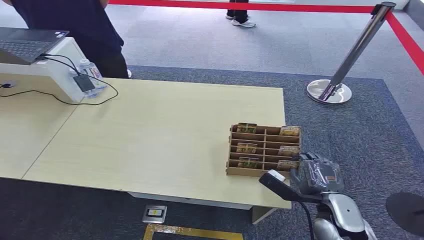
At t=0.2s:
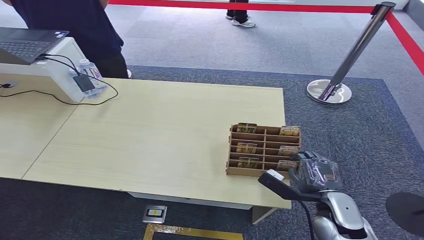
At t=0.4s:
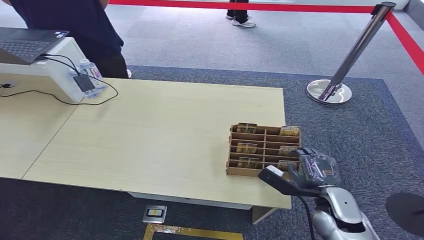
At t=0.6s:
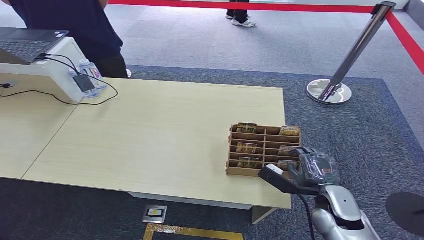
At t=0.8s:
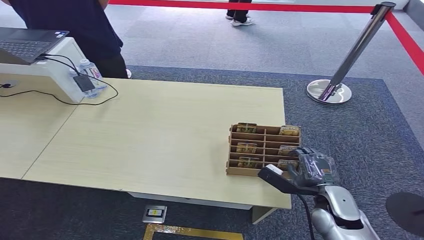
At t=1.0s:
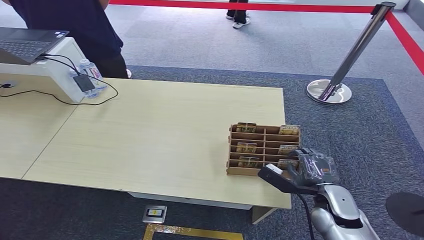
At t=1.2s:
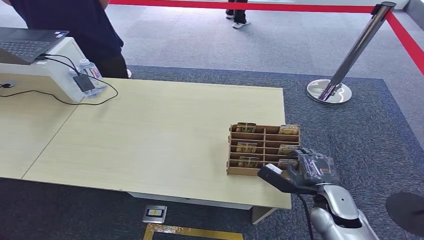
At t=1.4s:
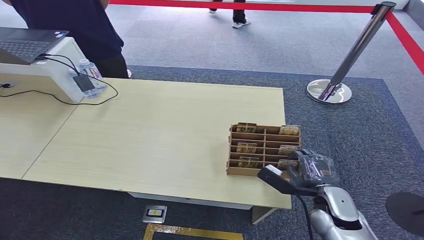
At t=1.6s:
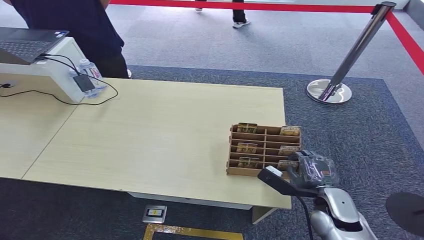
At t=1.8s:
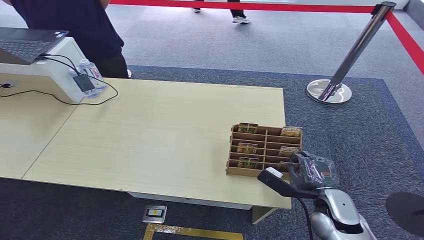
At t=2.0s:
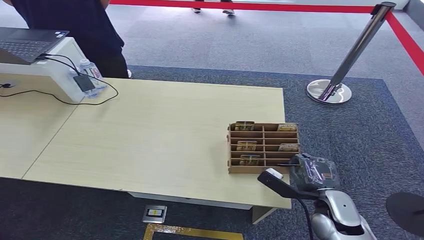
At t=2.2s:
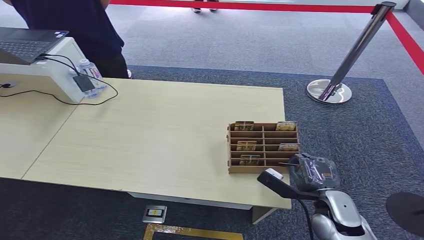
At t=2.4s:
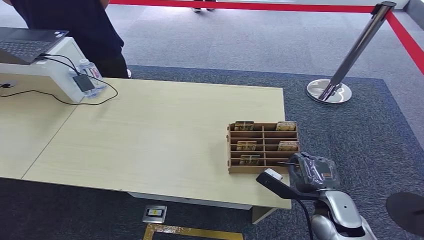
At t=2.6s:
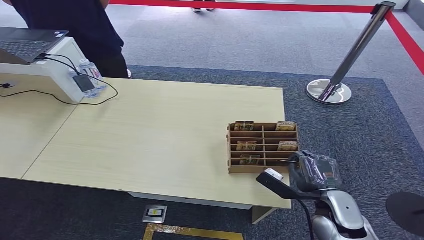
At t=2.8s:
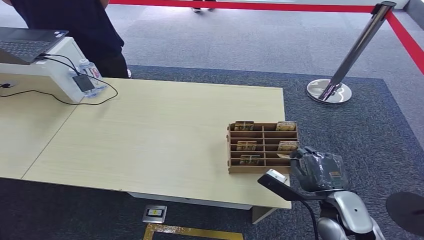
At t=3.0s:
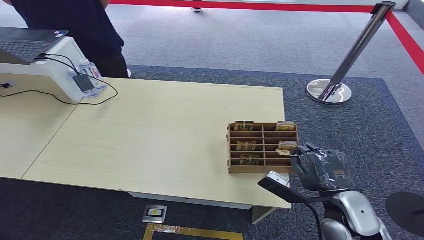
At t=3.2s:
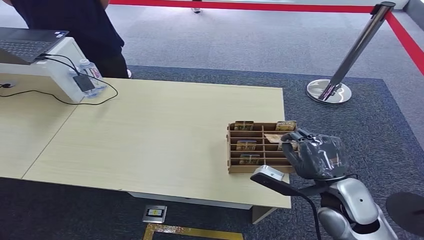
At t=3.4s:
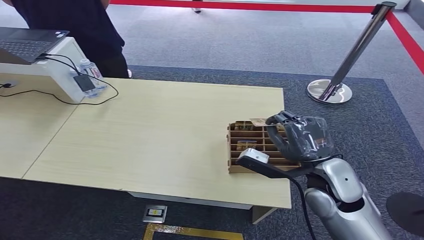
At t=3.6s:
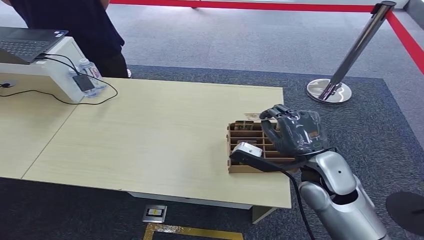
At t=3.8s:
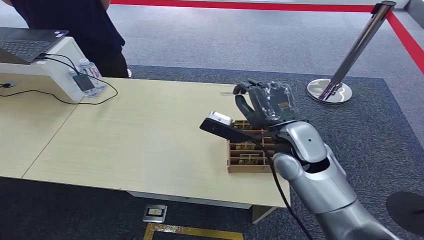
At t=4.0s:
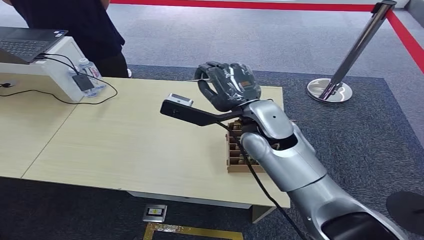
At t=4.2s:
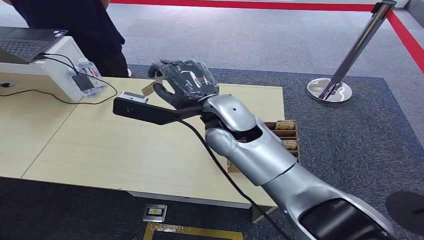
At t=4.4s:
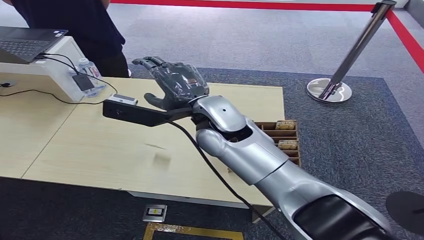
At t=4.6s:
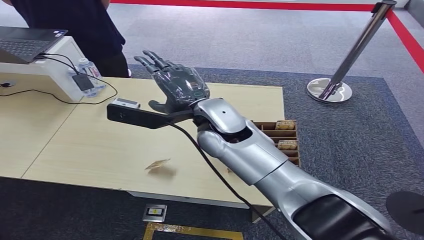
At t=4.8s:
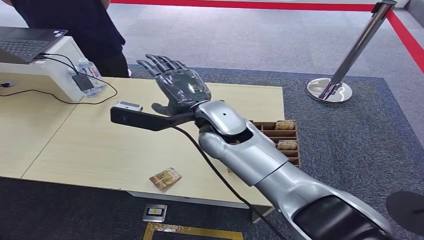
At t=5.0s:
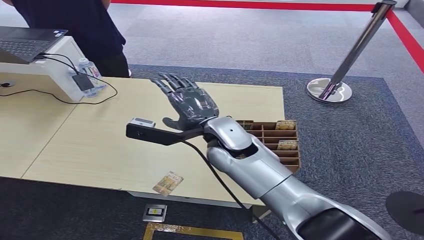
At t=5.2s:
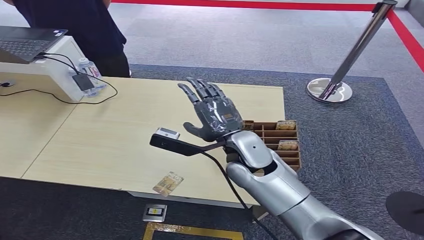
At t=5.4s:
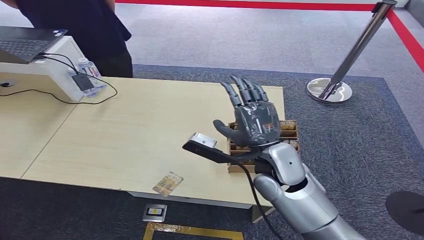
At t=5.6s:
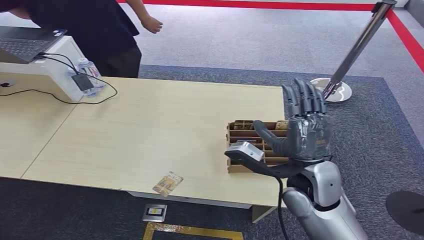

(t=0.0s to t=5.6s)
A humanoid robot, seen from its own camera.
Step, t=0.0s - t=2.8s: Pick up the key card from the card box.
Step, t=3.0s - t=5.6s: Hand the key card to the target.
t=1.4s - t=2.8s: The hands make only small movements.
t=2.8s - t=4.2s: The right hand shifts approximately 35 cm to the left, upward and forward.
t=4.2s - t=5.6s: The right hand shifts some 20 cm to the right, downward and backward.

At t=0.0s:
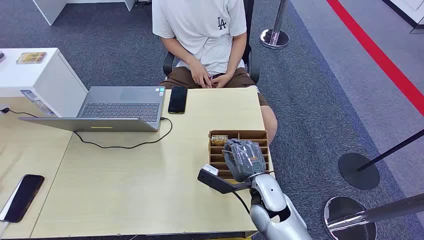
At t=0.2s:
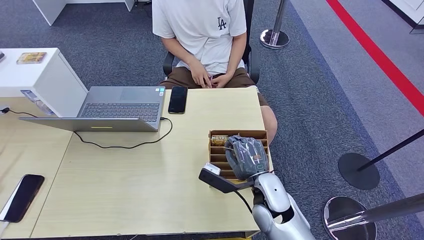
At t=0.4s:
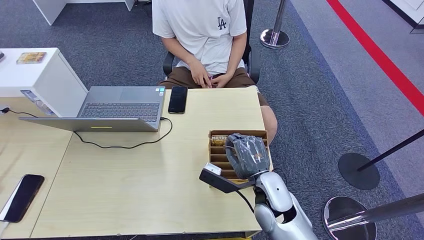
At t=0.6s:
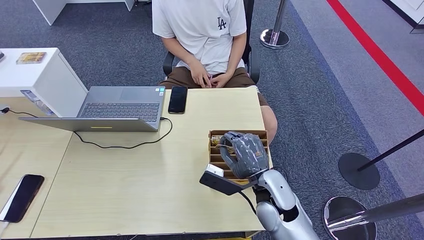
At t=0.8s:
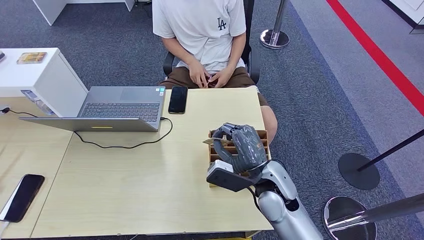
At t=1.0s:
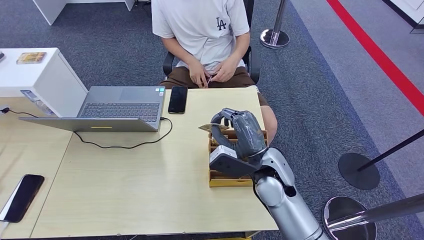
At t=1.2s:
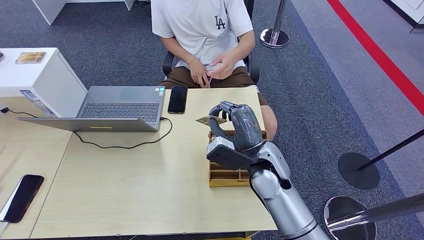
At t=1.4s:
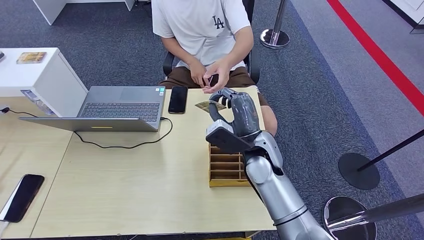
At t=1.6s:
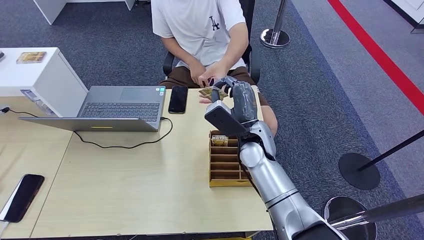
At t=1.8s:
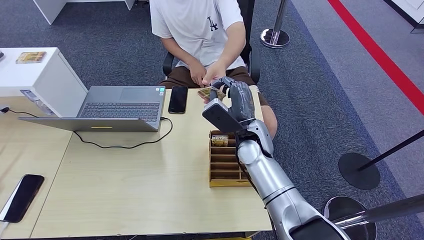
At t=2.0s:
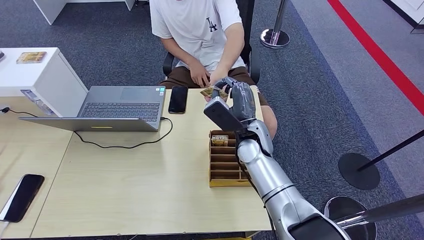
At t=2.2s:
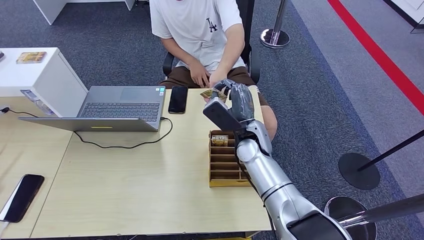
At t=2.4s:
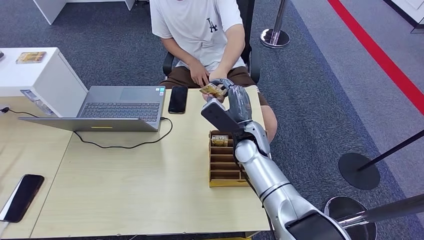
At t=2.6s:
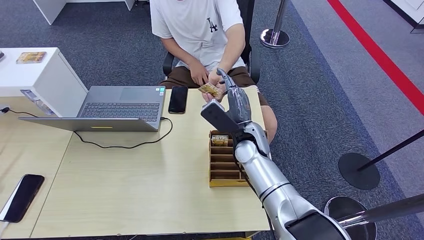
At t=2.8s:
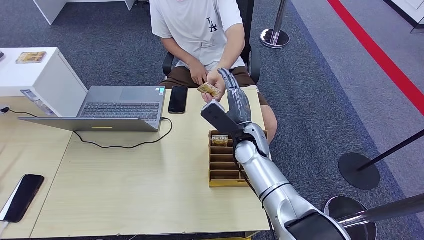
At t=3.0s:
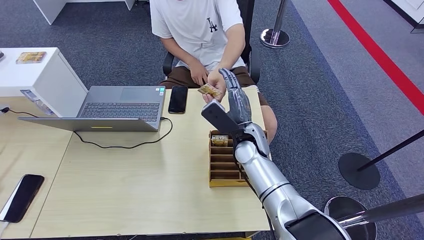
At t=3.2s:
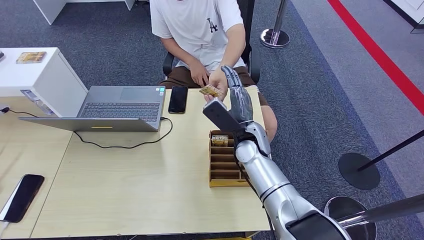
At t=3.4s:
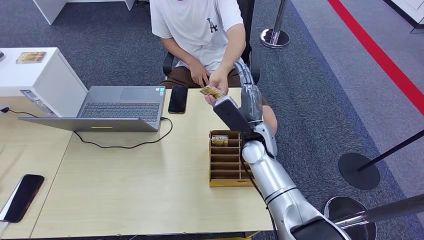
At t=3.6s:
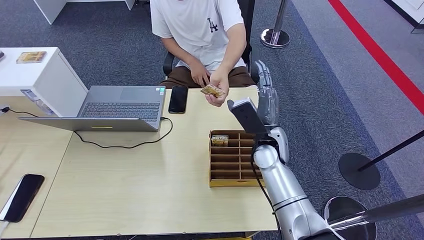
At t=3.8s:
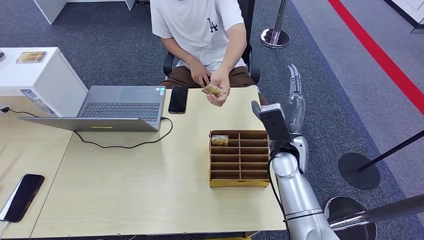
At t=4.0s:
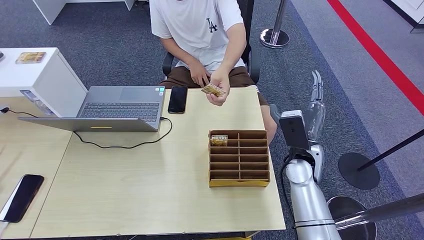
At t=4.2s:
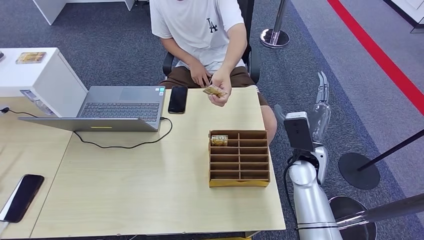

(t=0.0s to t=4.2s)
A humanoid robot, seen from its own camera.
Step, t=0.0s - t=1.8s: Pick up the key card from the card box.
Step, t=2.0s - t=4.2s: Hand the key card to the target.
t=1.4s - t=2.8s: The right hand goes some 5 cm forward.
t=2.8s - t=4.2s: The right hand heads to the right and backward, covering roughly 15 cm.
